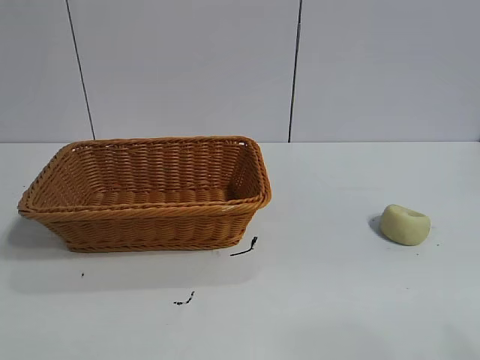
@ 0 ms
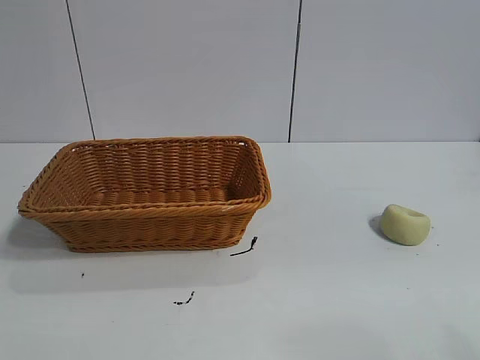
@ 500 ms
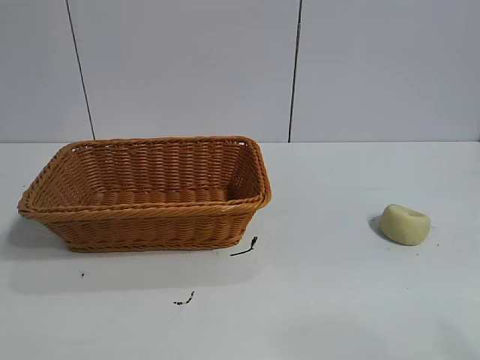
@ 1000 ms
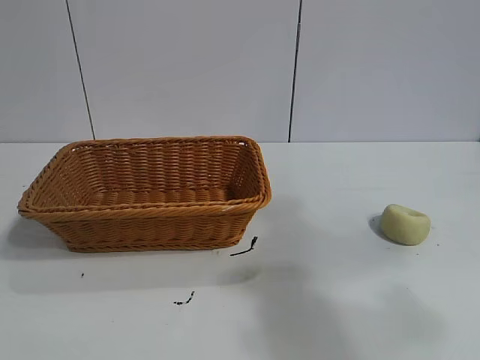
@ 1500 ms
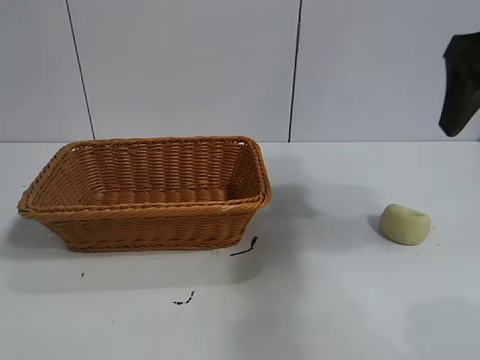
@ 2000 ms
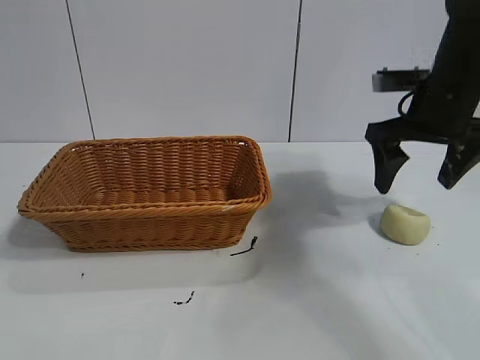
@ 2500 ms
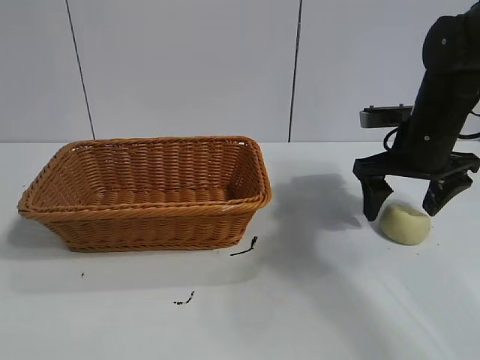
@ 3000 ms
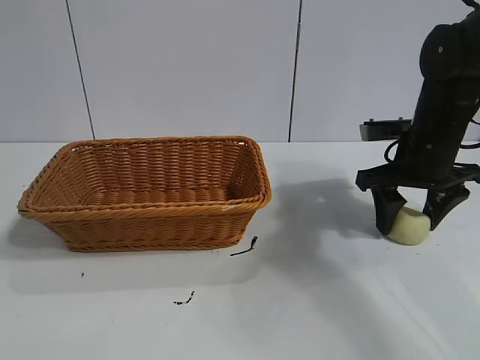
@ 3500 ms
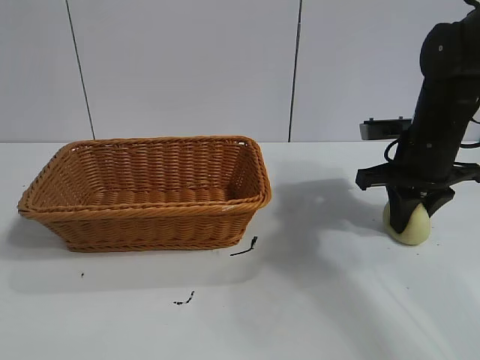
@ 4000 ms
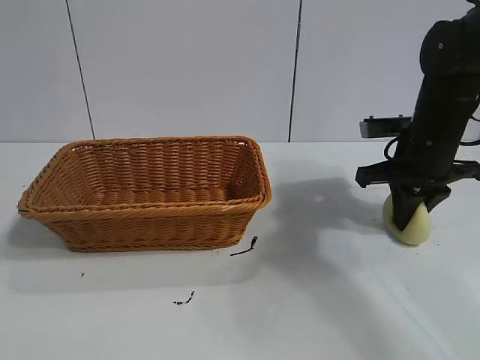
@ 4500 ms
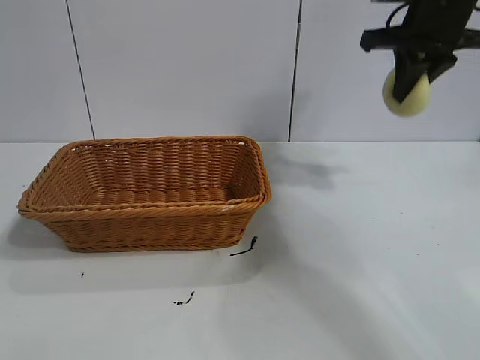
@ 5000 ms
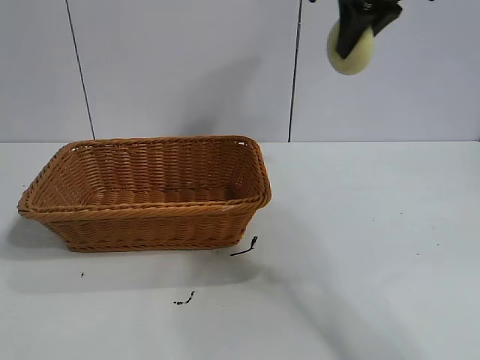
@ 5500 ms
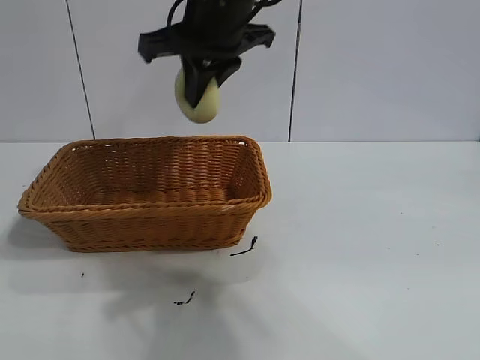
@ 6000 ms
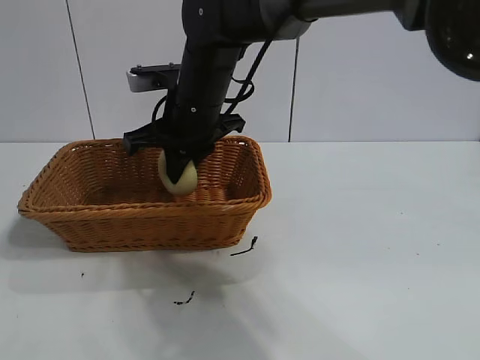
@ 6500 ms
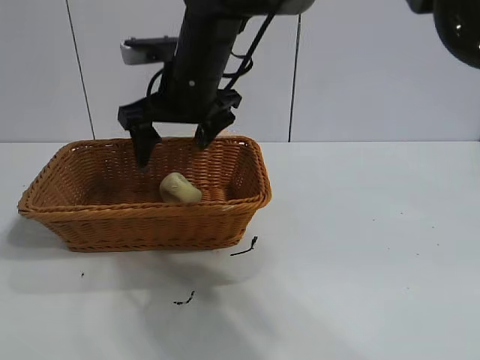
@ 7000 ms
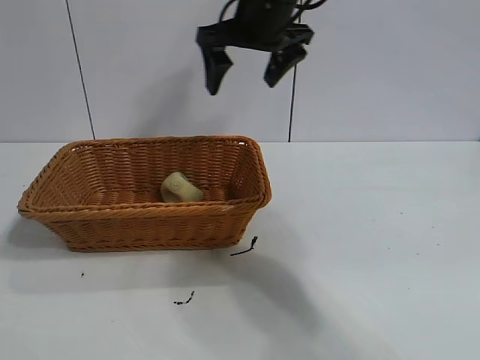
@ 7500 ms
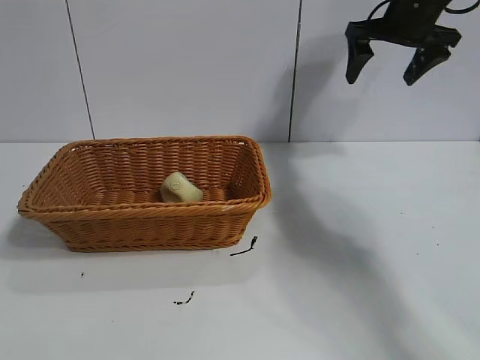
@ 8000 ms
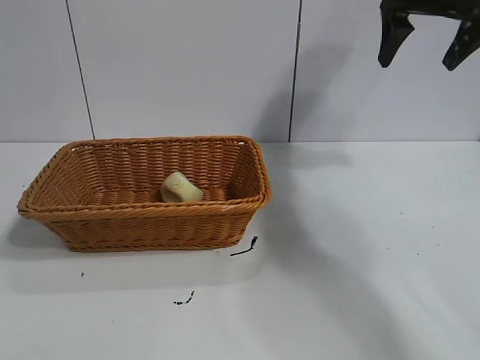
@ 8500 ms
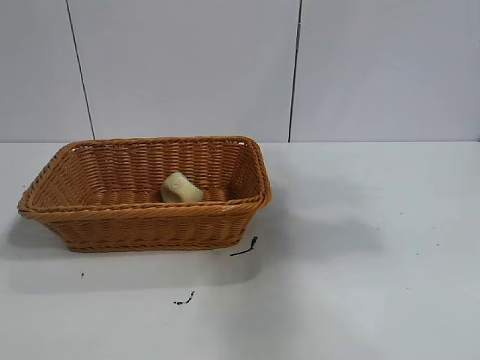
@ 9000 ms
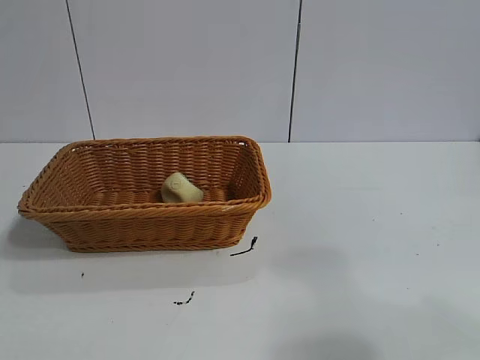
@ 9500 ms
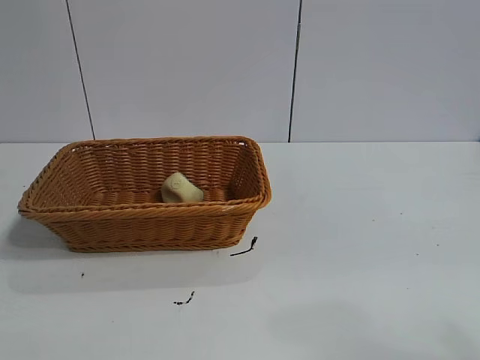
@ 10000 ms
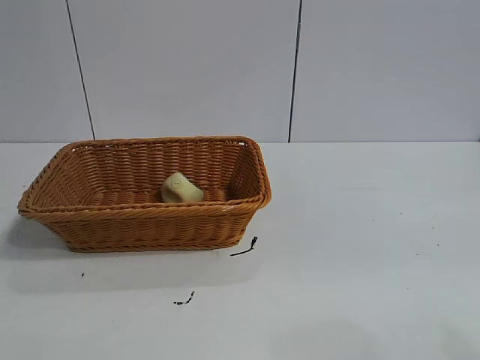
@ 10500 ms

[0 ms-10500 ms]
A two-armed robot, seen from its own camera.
Task of the whole recording: pick up the egg yolk pastry and put it into the basket.
Step, 1000 ms to 4000 ms: Grasp egg yolk pastry with right gripper.
Step, 5000 ms to 6500 ms: Place the egg yolk pastry in the basket with right gripper.
